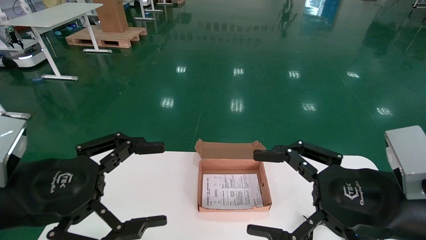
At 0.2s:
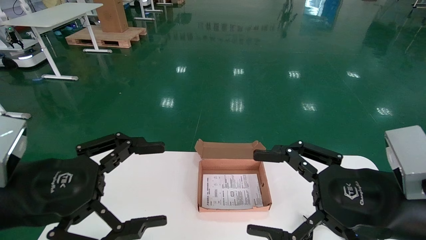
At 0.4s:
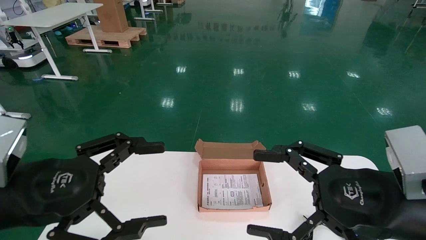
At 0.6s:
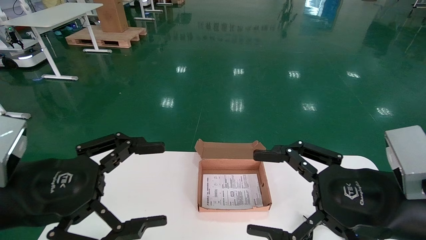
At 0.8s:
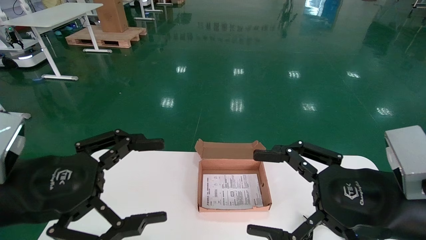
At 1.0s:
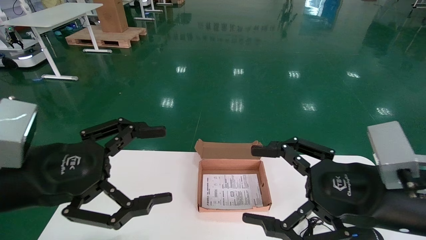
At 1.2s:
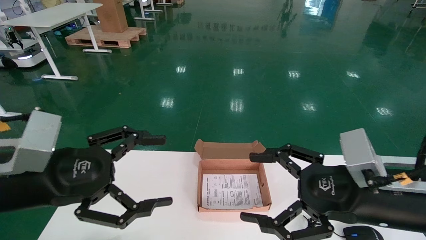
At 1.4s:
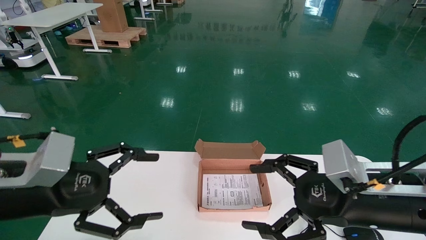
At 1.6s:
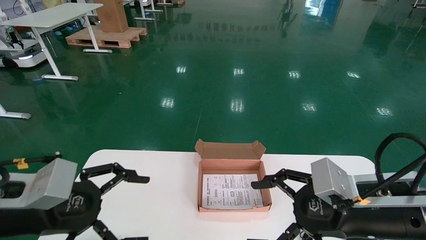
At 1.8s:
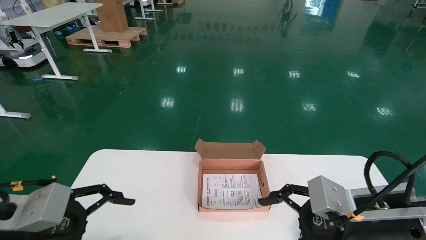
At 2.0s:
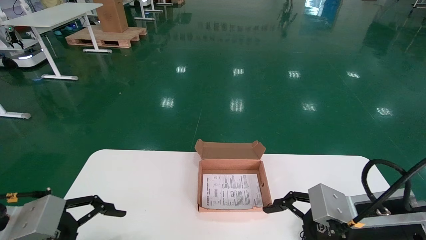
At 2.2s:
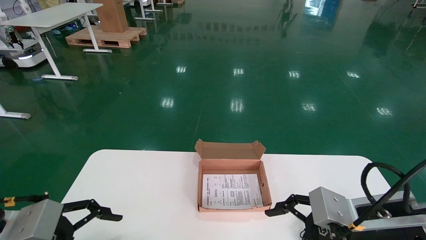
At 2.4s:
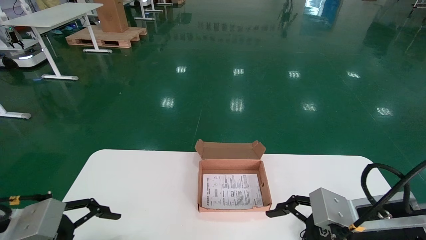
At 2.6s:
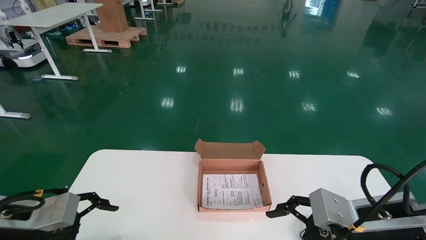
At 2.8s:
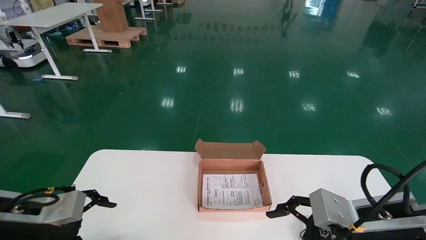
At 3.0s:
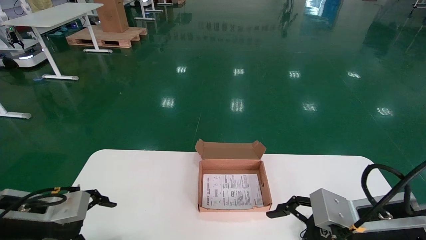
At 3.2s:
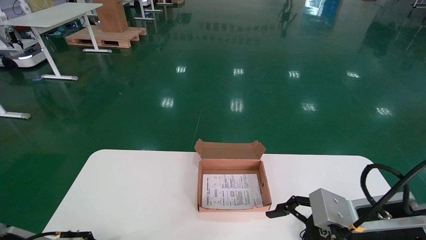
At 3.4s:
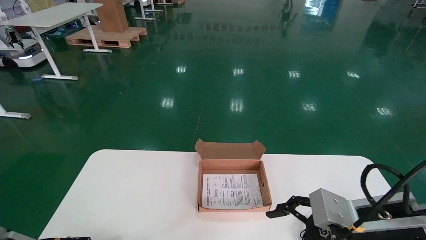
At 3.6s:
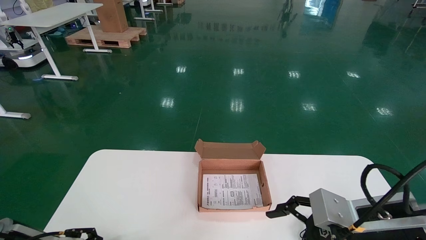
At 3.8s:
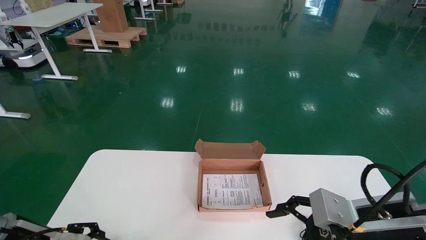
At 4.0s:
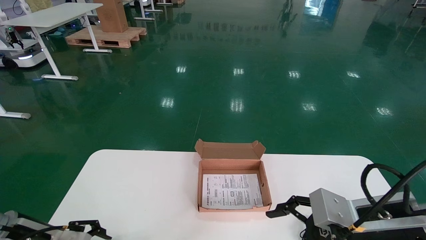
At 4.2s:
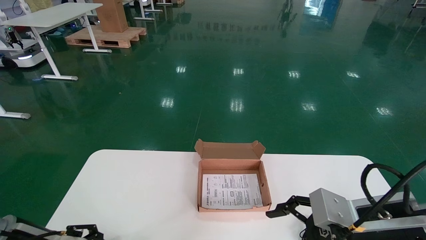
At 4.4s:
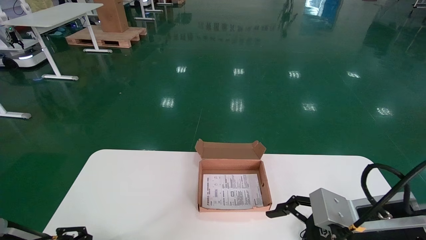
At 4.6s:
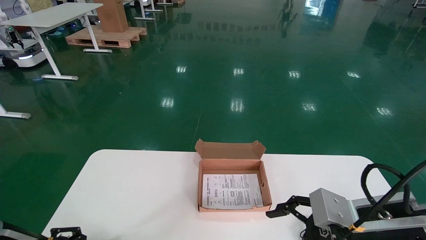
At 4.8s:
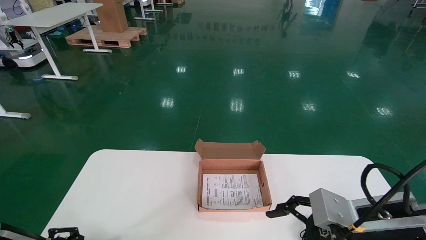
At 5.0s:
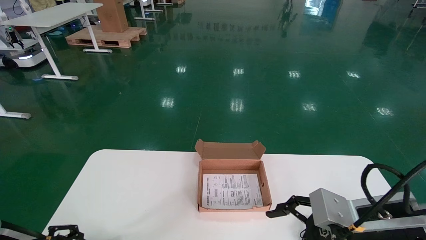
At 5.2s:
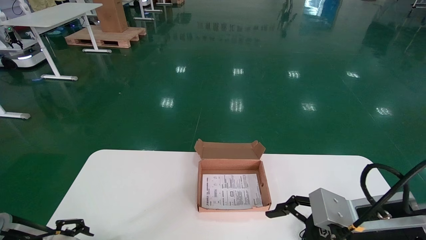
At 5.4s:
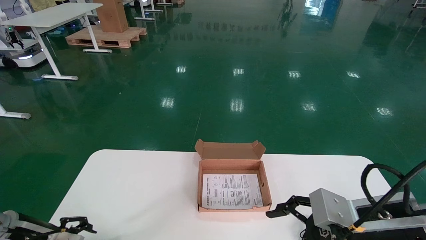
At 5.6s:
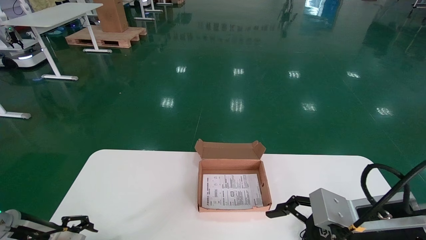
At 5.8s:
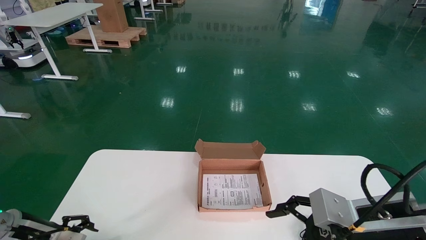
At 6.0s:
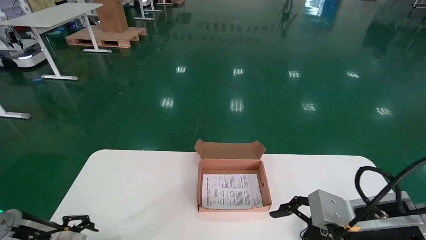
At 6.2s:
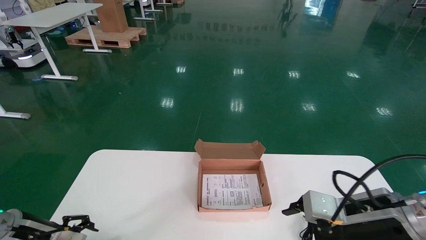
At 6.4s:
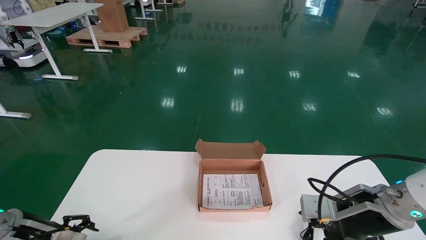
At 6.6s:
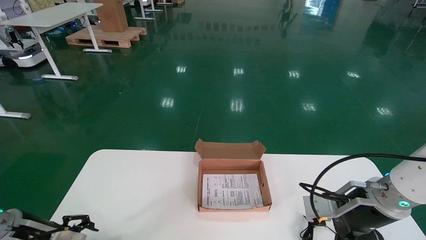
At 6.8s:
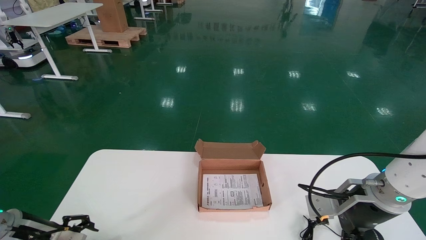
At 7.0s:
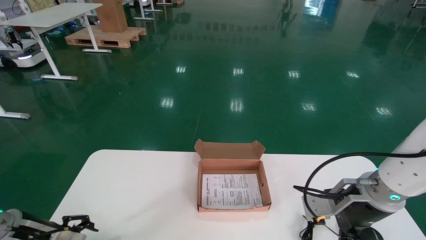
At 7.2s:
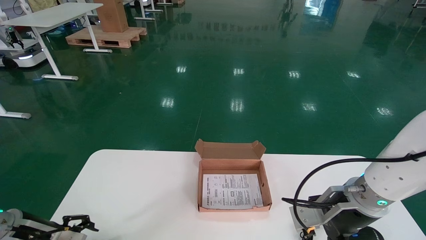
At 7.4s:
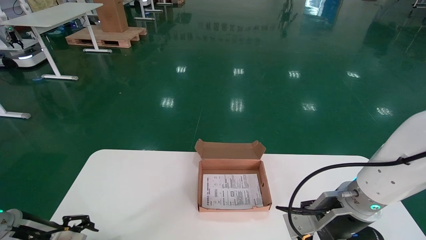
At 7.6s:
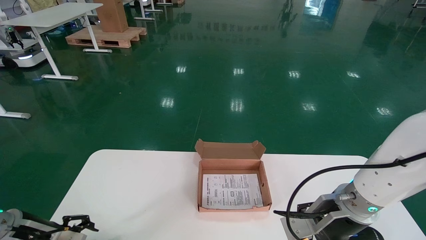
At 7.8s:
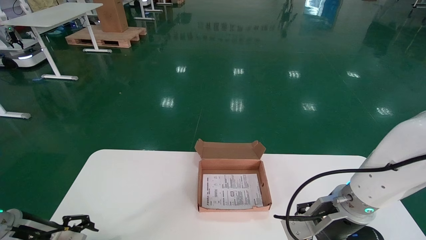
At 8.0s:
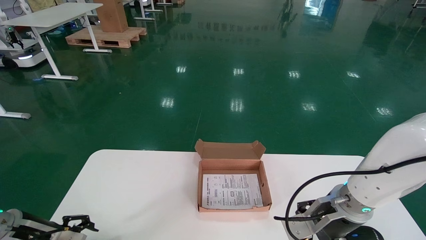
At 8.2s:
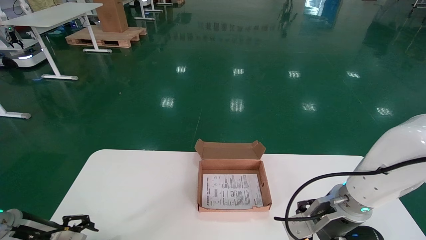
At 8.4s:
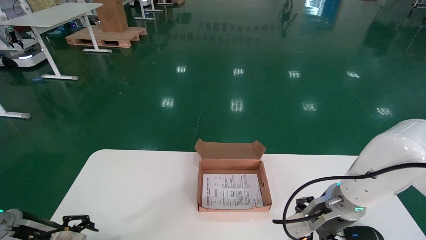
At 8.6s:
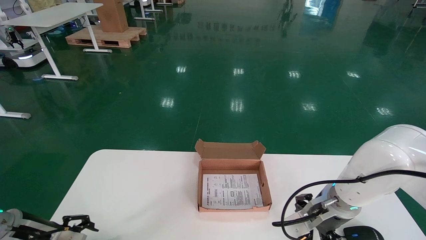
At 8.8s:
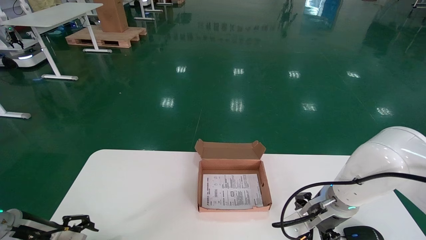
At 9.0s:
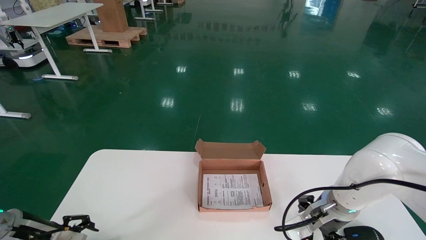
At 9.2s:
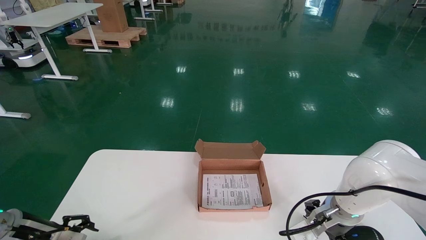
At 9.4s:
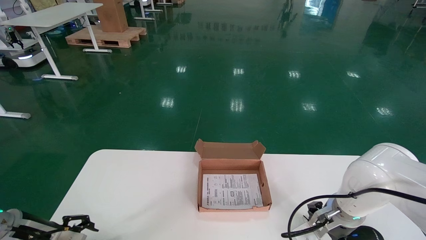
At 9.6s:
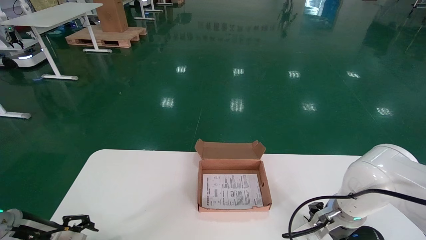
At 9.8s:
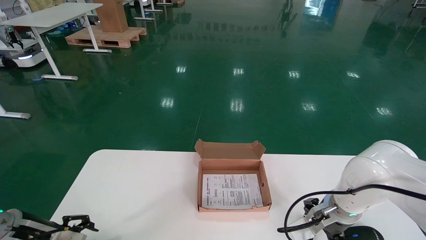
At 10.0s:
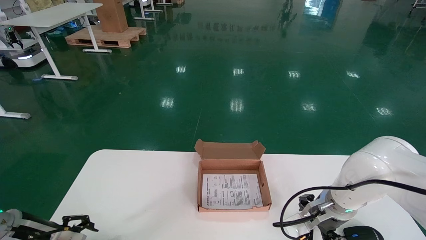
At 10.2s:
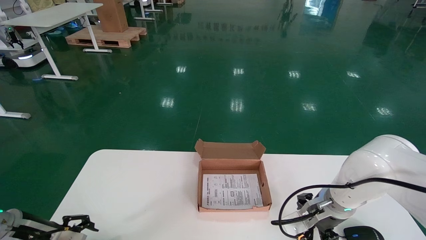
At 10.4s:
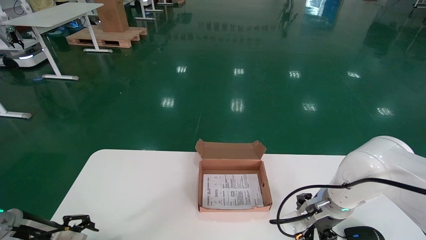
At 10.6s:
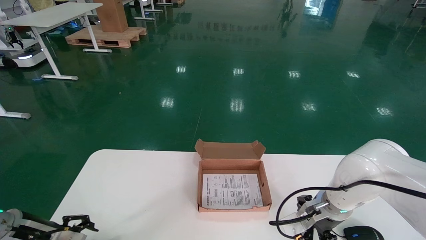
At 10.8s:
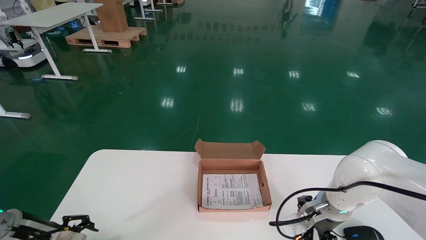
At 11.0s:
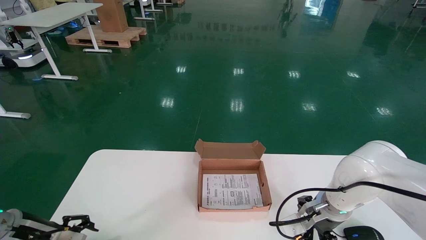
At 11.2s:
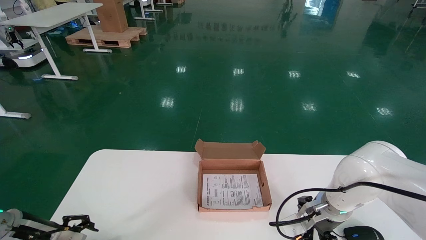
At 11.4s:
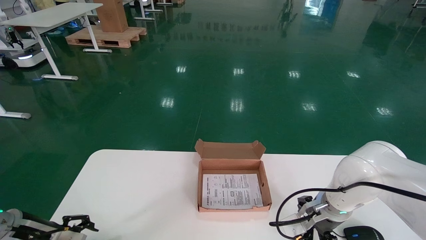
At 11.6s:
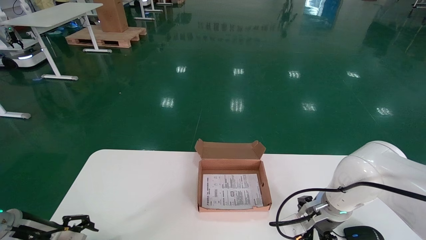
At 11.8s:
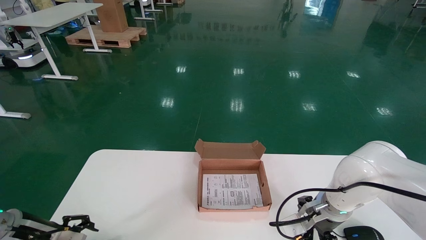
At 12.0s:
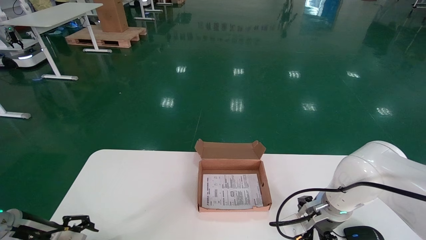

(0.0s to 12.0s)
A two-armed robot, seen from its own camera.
0.0s - 1.6s: The right gripper changes place by about 5 cm.
1.6s - 3.0s: The left gripper goes some 10 cm downward, to the left and forward.
3.0s - 4.4s: The left gripper shifts by roughly 5 cm.
4.4s - 6.0s: The grippers make only small movements.
6.0s - 7.6s: The right gripper heads forward, covering about 10 cm.
7.6s - 9.0s: The right gripper shifts by approximately 5 cm.
9.0s - 10.4s: The grippers move only a little.
10.4s - 12.0s: Neither gripper changes place.

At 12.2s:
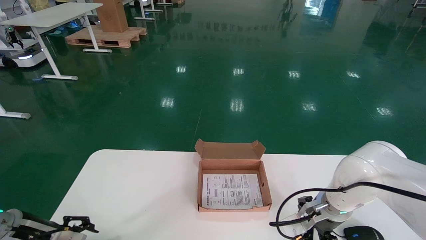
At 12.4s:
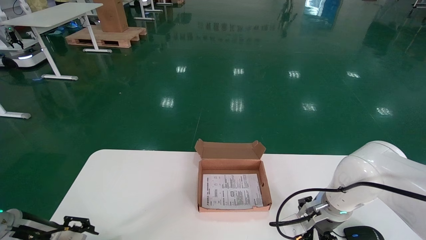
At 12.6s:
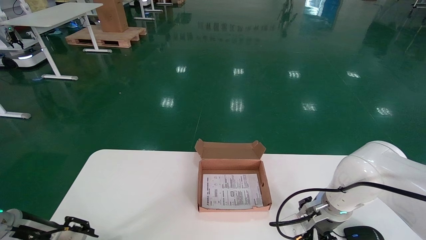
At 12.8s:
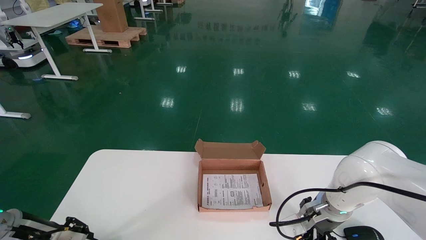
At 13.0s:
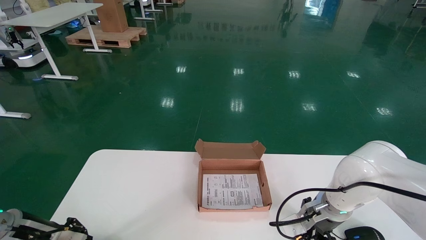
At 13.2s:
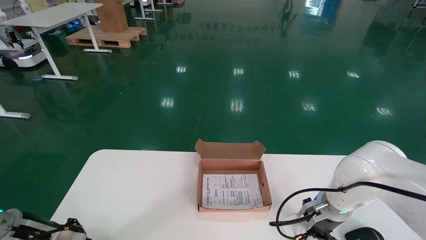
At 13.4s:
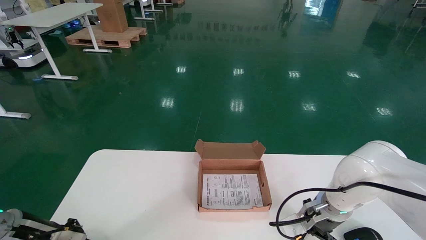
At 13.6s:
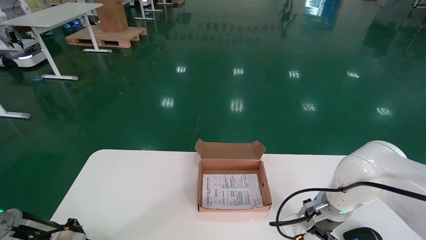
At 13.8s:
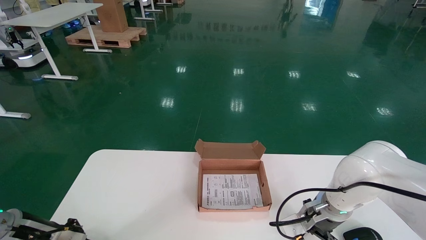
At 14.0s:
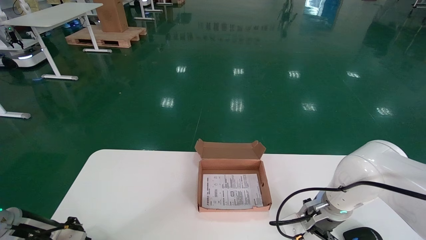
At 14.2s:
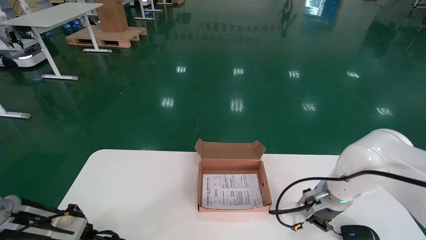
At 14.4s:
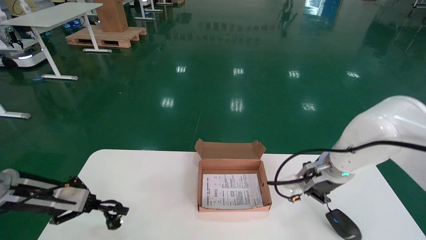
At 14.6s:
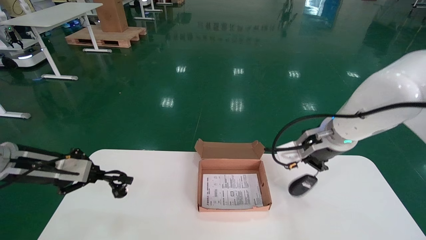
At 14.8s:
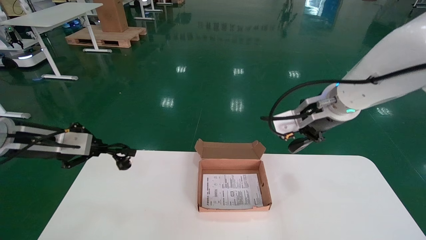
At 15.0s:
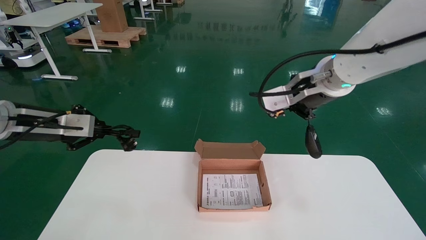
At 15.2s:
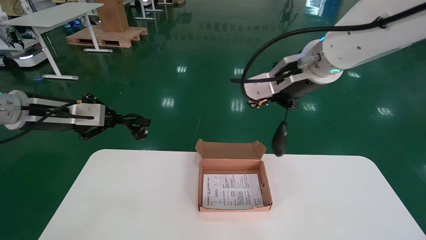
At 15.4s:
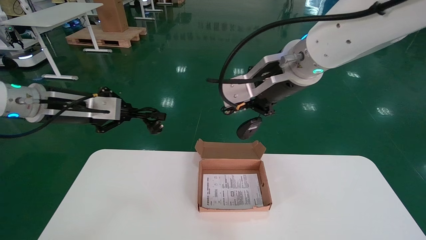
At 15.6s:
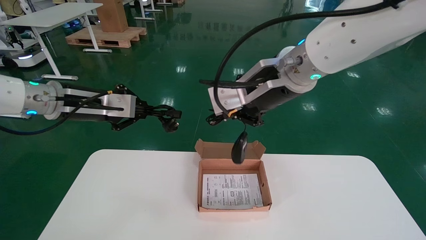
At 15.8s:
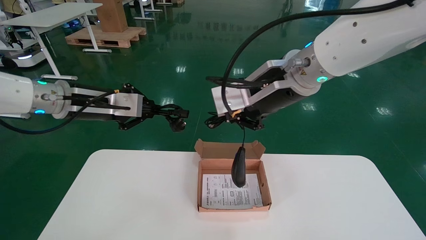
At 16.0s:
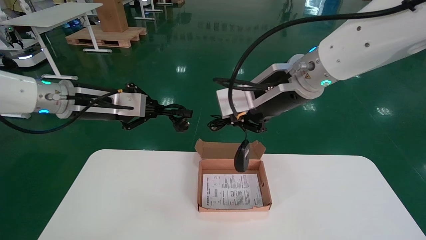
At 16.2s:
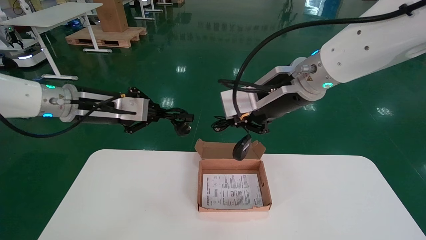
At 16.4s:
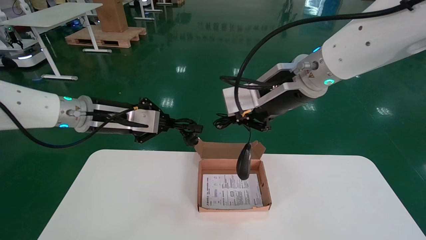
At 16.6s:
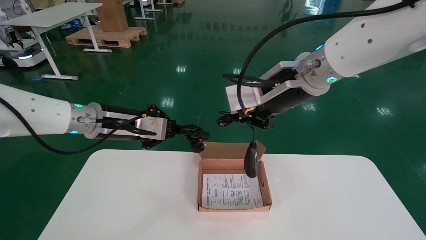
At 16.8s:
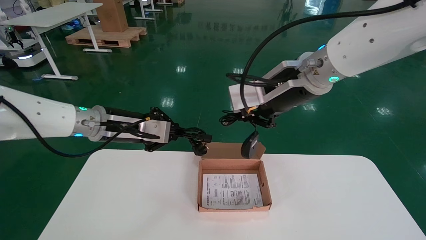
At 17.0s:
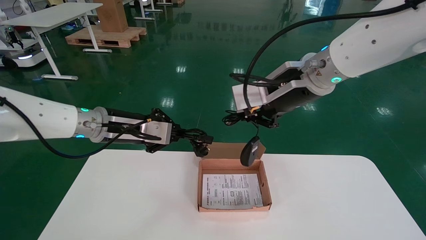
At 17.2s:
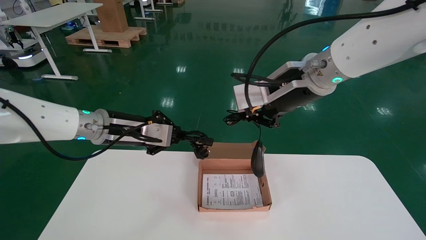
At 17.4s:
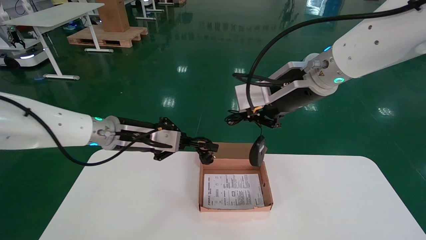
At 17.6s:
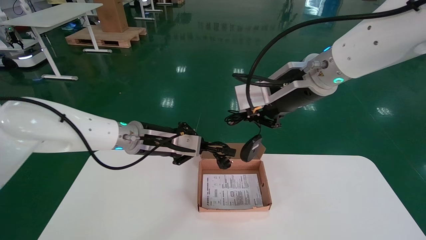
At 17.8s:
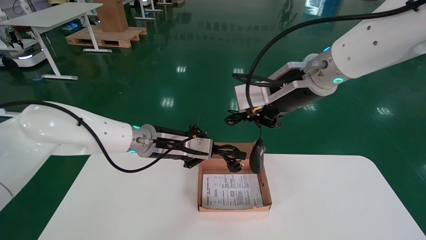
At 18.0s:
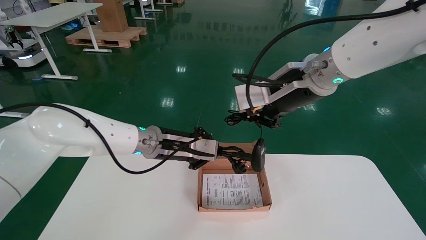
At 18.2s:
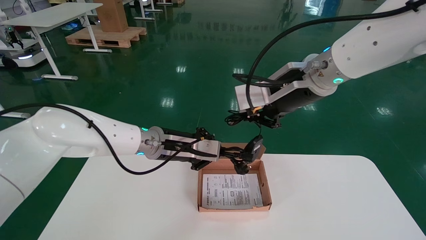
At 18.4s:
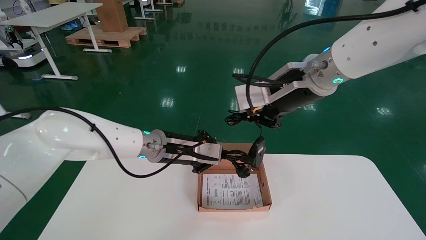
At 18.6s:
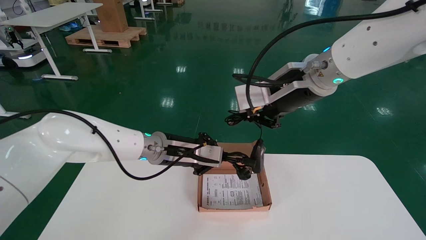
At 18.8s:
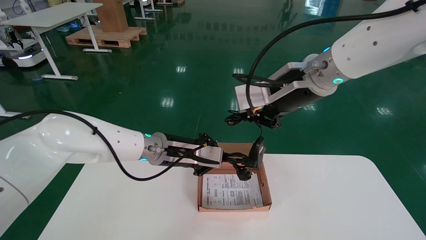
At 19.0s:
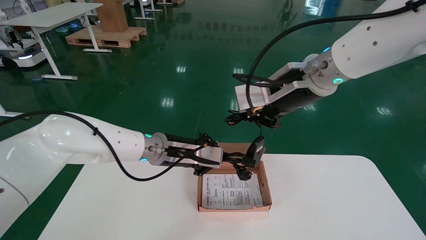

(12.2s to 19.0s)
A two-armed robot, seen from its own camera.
12.2s - 13.6s: The left gripper closes its fingers.
13.6s - 15.0s: Both grippers move upward, approximately 20 cm.
15.0s - 16.2s: The right gripper shifts about 10 cm to the left and backward. Meanwhile the left gripper moves to the right and upward, some 15 cm.
16.2s - 17.6s: The left gripper moves downward and to the right, approximately 10 cm.
17.6s - 19.0s: The left gripper moves to the right, about 10 cm.
